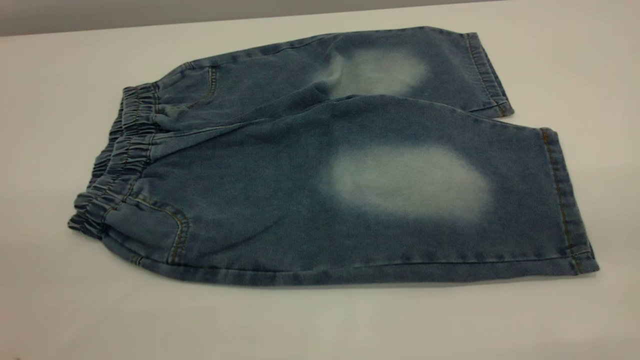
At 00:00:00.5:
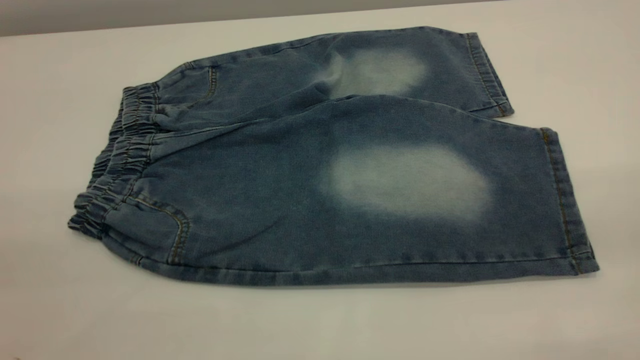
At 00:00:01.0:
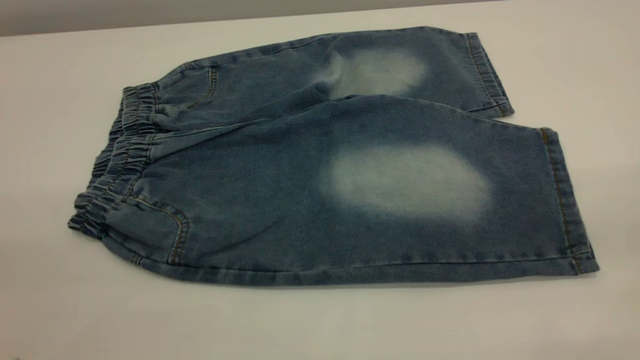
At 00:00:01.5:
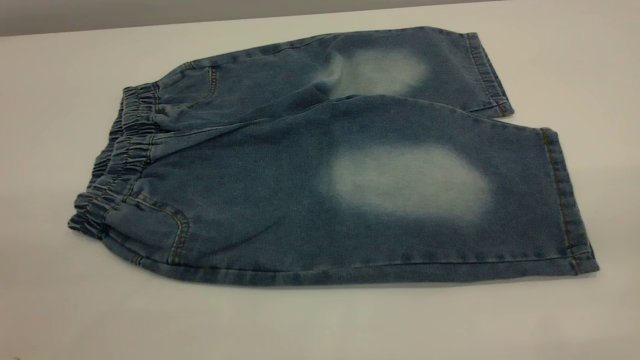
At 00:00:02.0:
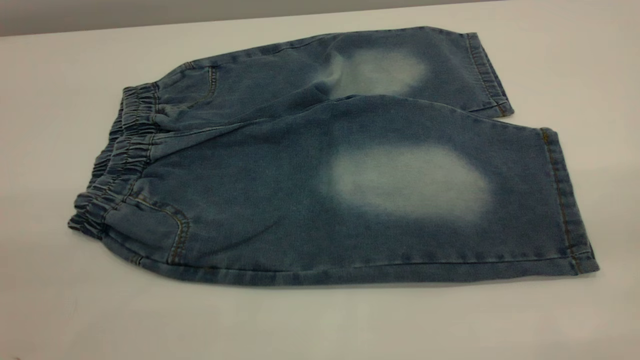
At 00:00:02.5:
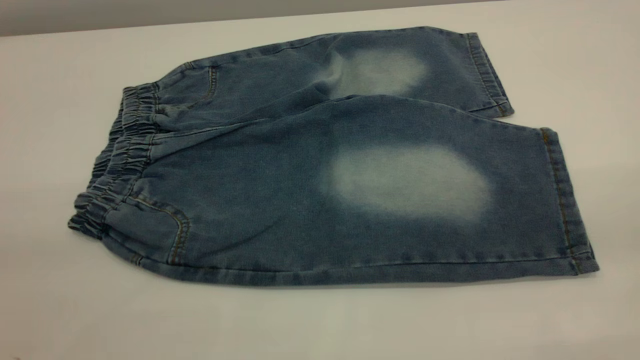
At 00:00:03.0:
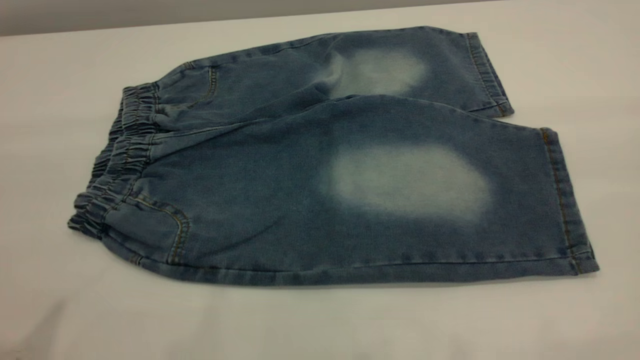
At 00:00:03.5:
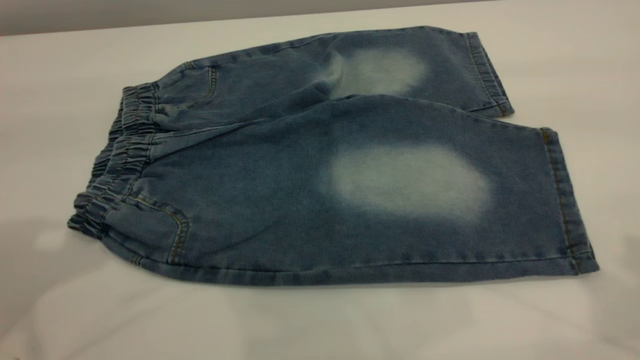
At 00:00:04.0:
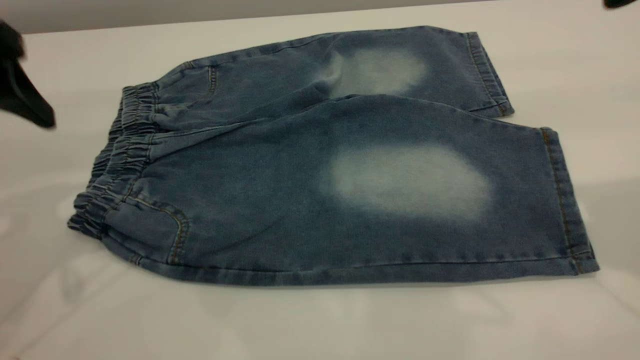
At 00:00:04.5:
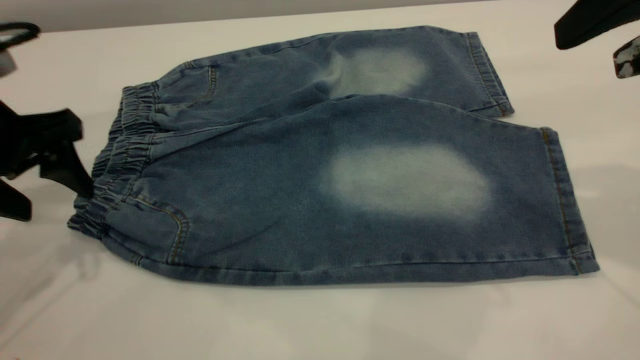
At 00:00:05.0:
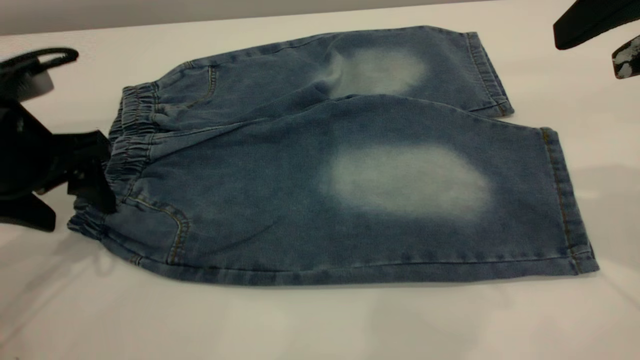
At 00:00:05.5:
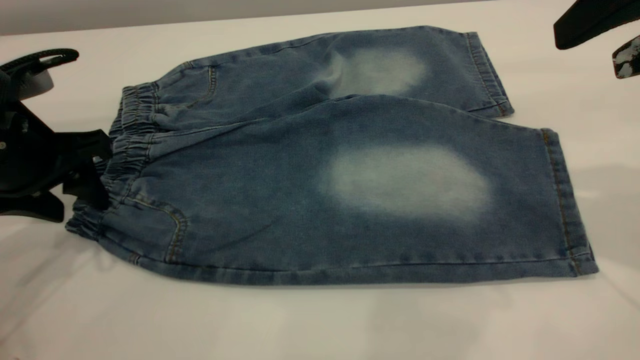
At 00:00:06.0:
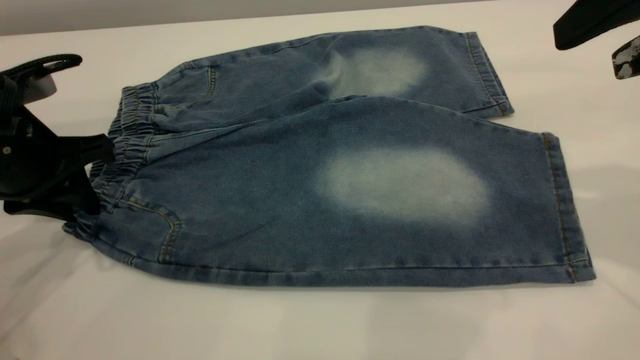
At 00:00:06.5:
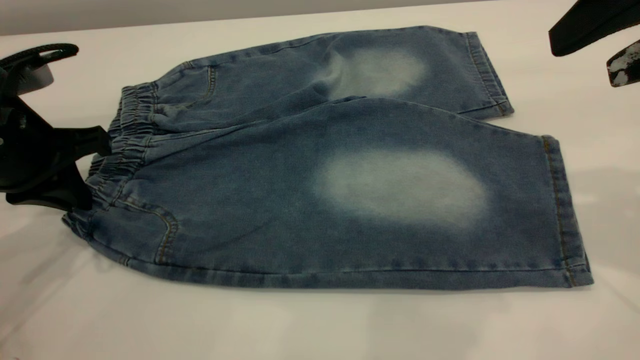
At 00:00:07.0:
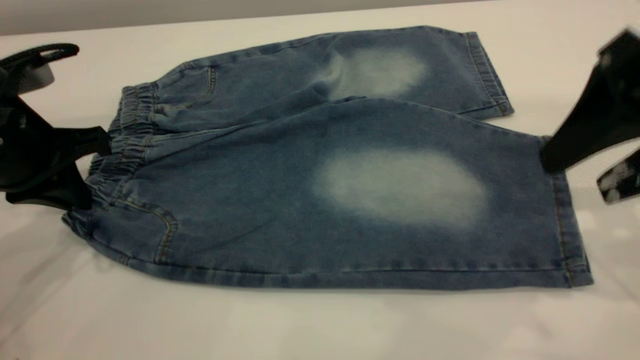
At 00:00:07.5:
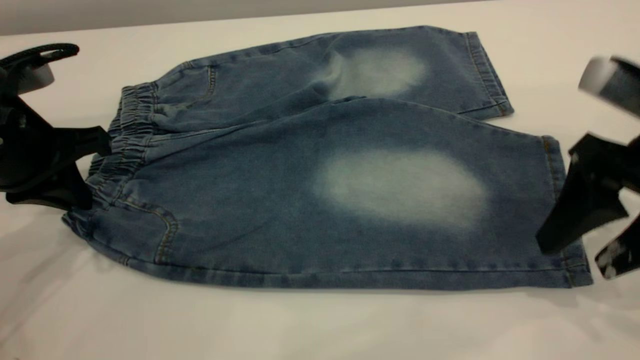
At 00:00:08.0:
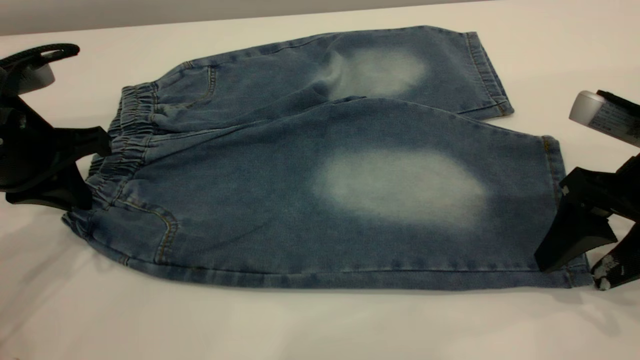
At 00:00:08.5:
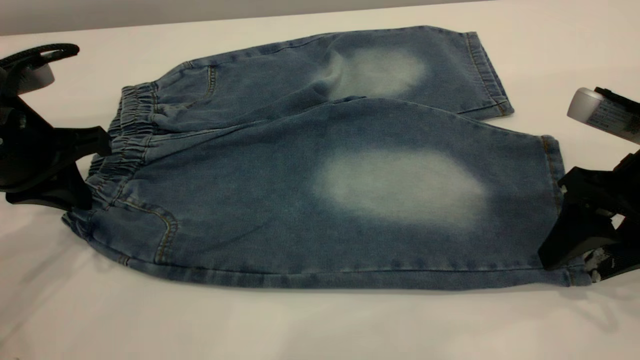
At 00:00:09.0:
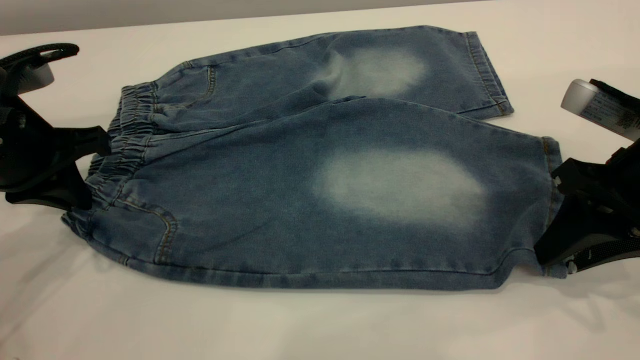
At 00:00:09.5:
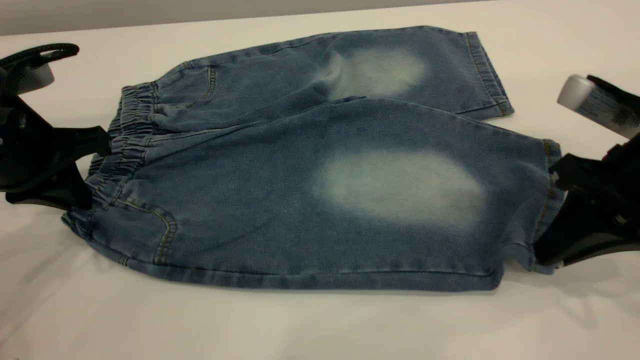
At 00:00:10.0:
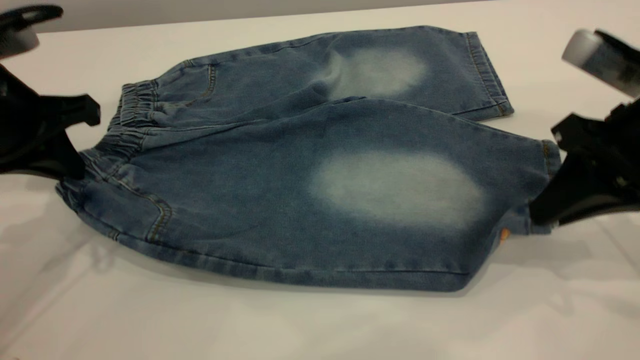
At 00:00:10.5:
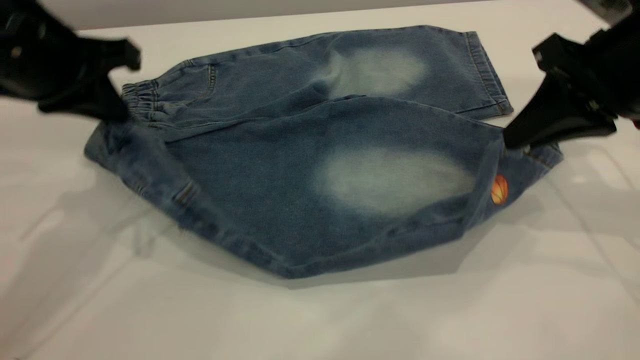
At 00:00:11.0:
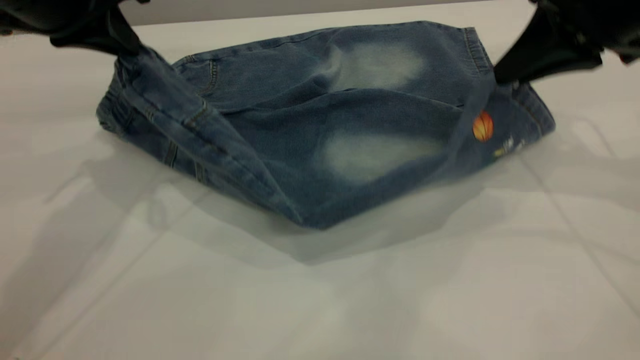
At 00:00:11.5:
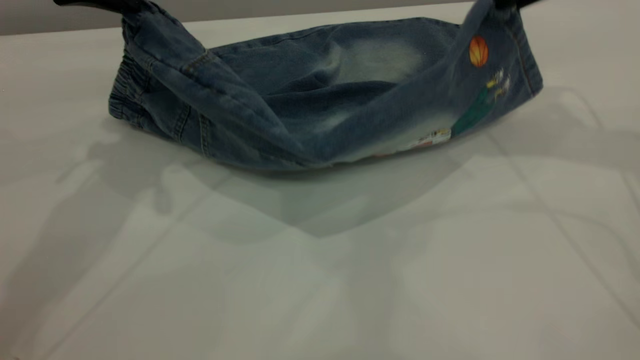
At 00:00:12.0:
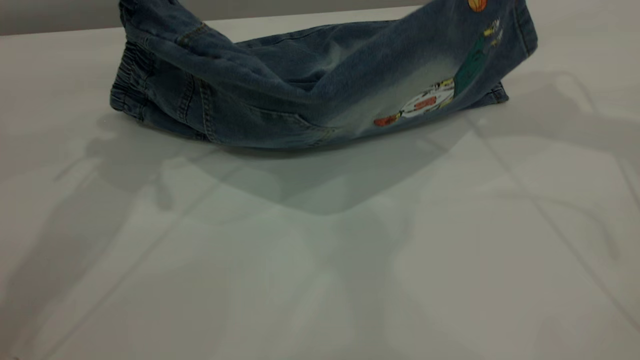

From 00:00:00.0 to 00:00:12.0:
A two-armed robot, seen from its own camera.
From 00:00:02.0 to 00:00:04.0: The left gripper is displaced forward and downward by about 30 cm.
From 00:00:04.0 to 00:00:06.0: The left gripper travels downward by about 10 cm, and closes its fingers.
From 00:00:06.0 to 00:00:08.0: The right gripper is displaced downward by some 15 cm.
From 00:00:08.0 to 00:00:10.0: The right gripper closes its fingers.
From 00:00:10.0 to 00:00:12.0: The left gripper goes about 15 cm upward, forward and to the right; the right gripper travels forward and upward by roughly 20 cm.

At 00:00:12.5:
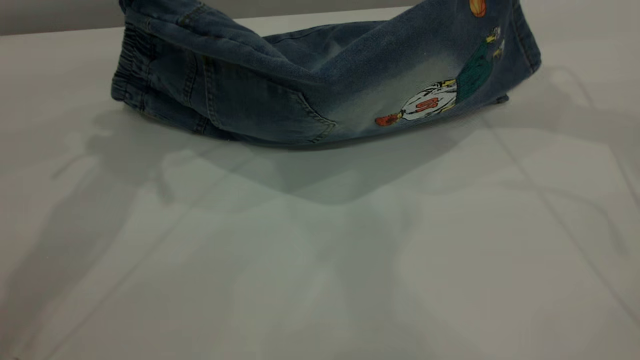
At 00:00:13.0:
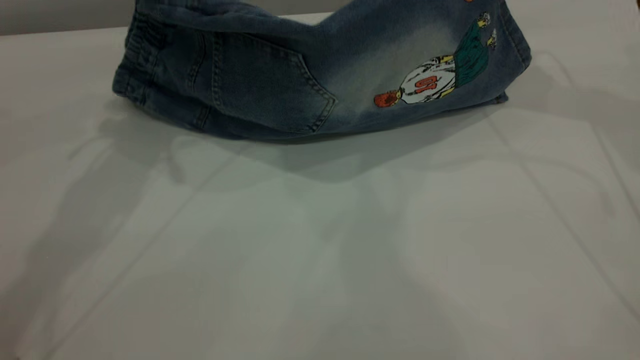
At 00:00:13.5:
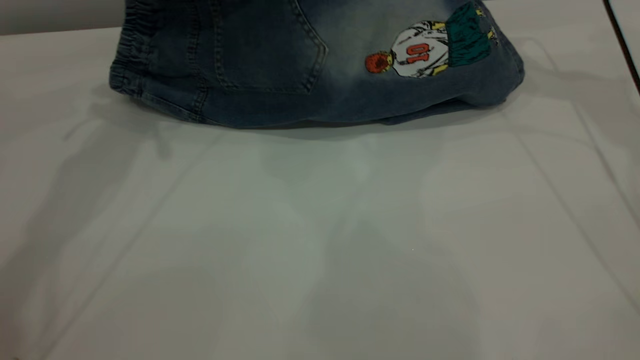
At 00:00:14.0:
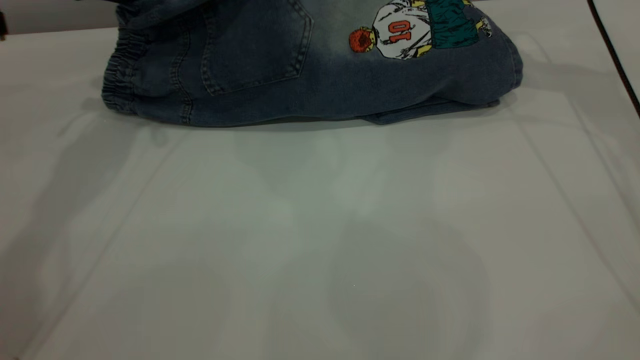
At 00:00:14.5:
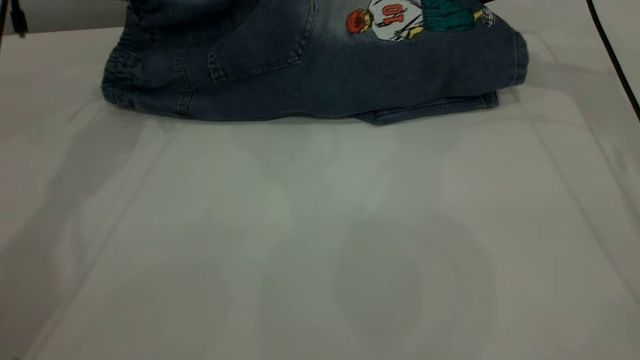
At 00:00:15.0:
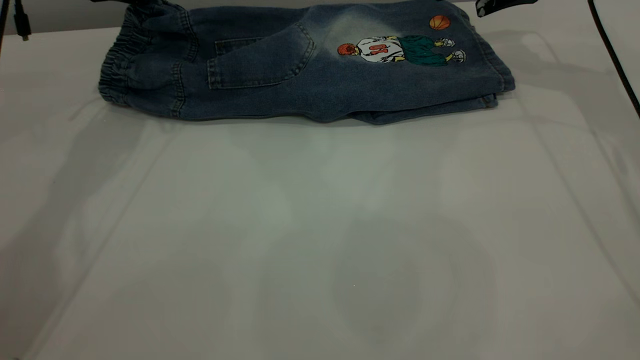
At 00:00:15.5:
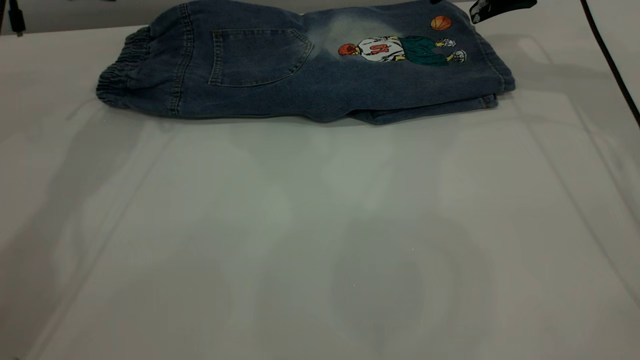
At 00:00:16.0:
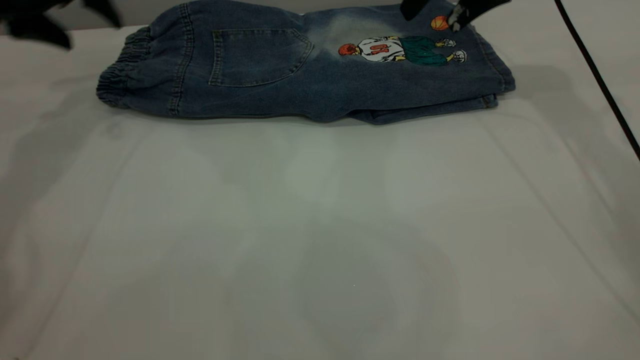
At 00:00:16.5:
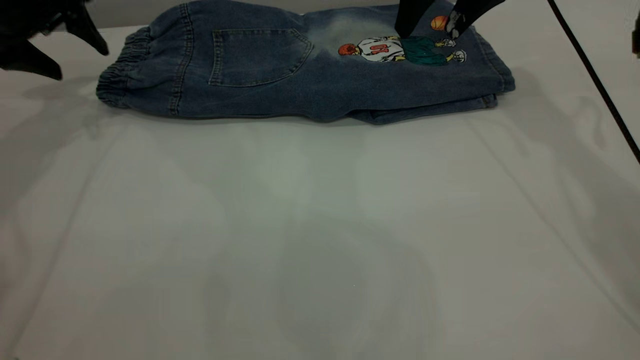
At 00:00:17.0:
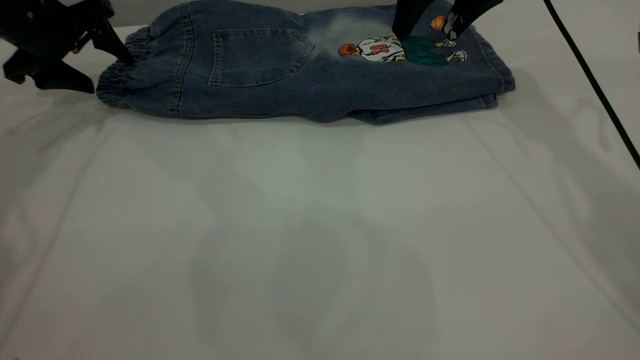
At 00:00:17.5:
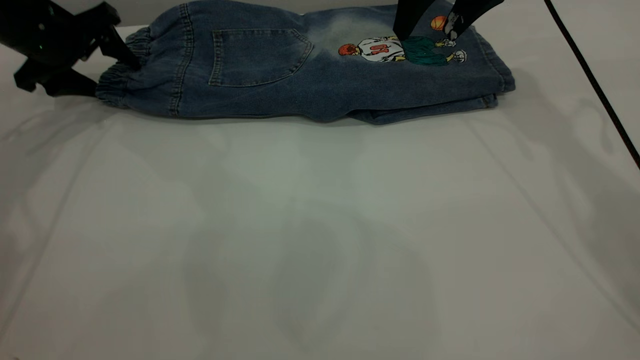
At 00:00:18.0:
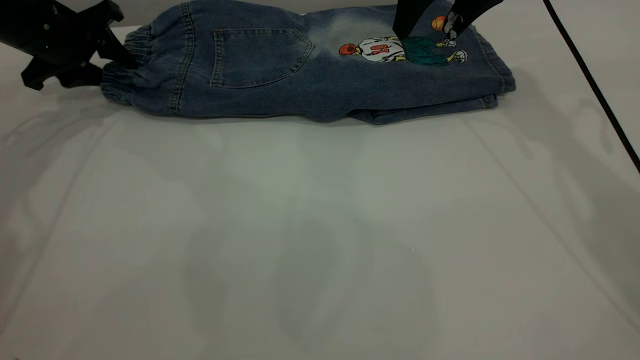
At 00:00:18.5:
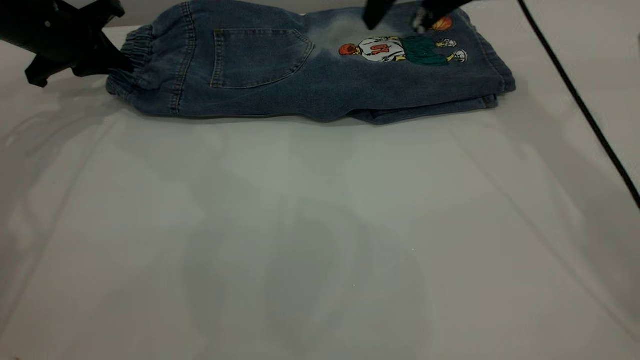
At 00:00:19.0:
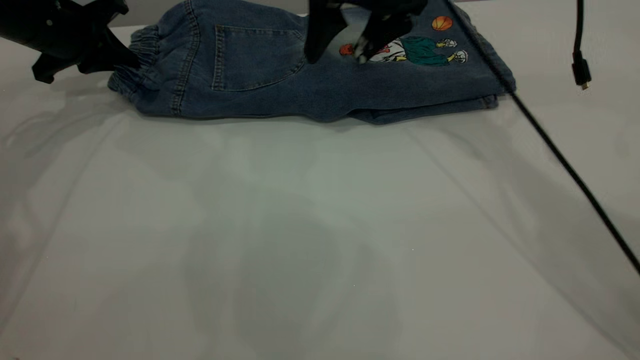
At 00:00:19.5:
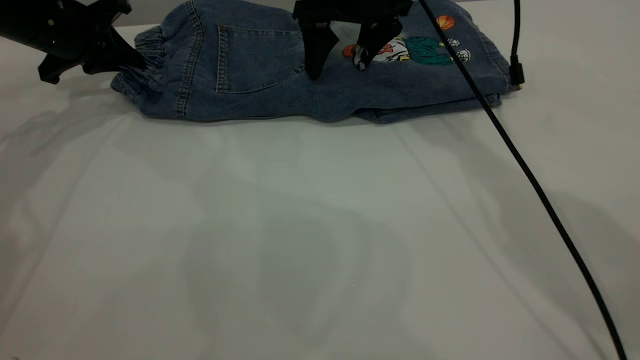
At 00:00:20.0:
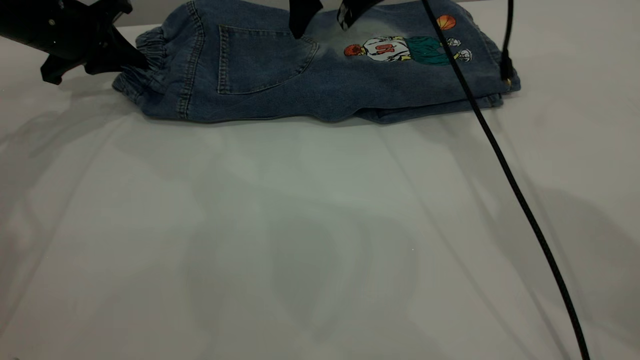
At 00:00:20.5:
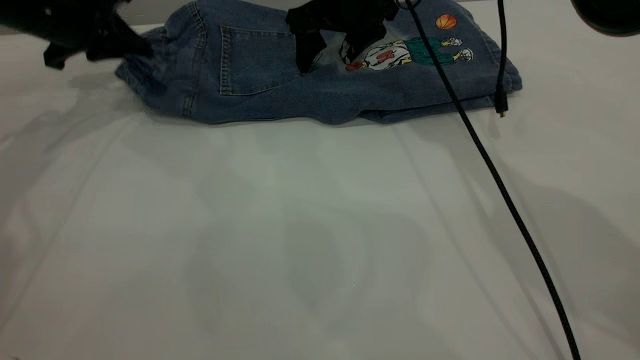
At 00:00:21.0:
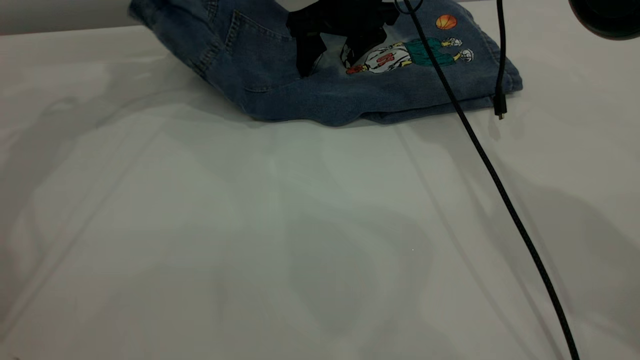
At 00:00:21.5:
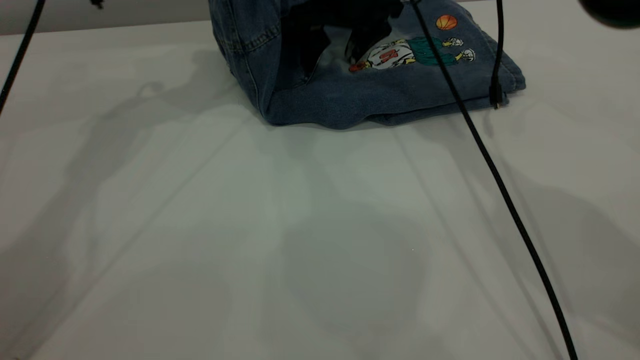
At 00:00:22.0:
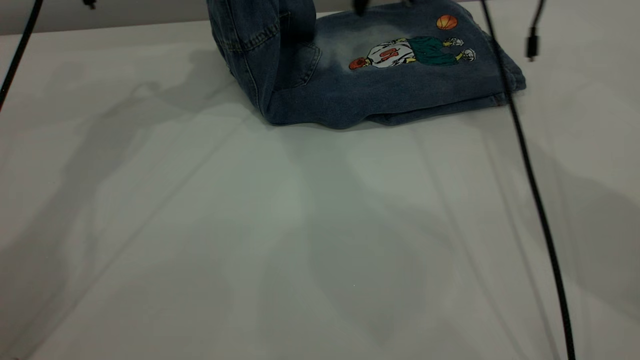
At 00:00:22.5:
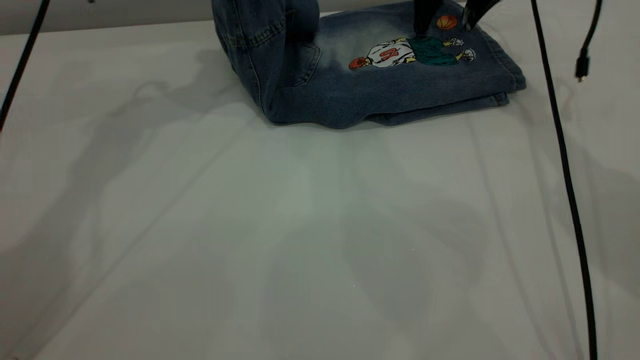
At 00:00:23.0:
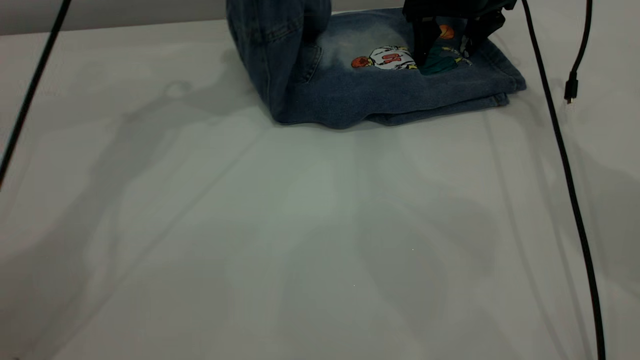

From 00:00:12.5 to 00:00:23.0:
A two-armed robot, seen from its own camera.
Step, from 00:00:12.5 to 00:00:15.0: Fold the bottom of the pants upward.
From 00:00:12.5 to 00:00:14.5: The grippers both shift forward and downward by roughly 10 cm.
From 00:00:14.5 to 00:00:16.5: The two grippers go roughly 10 cm to the left. The right gripper opens, while the left gripper opens.
From 00:00:16.5 to 00:00:19.0: The left gripper moves about 5 cm, and closes its fingers. The right gripper travels to the left by about 10 cm.
From 00:00:19.0 to 00:00:21.0: The right gripper ends up about 5 cm from where it was. The left gripper travels upward and to the right by approximately 10 cm.
From 00:00:21.0 to 00:00:23.0: The grippers both shift to the right by some 15 cm.
